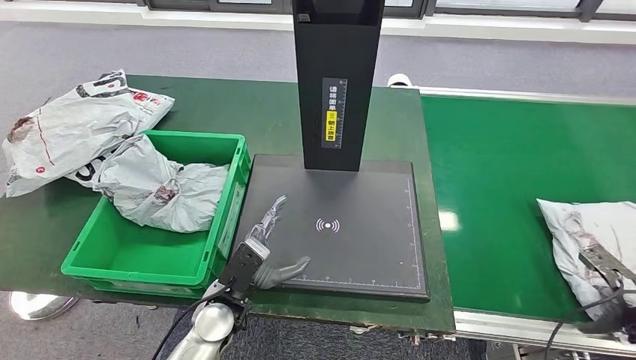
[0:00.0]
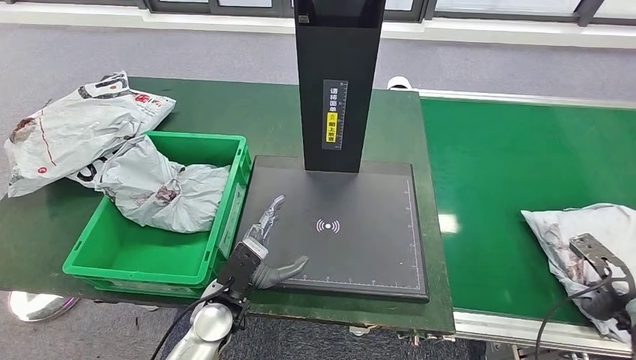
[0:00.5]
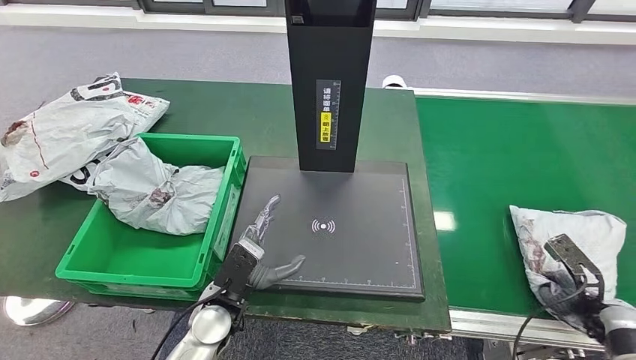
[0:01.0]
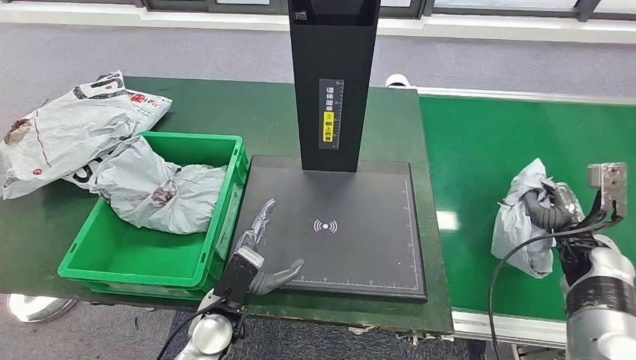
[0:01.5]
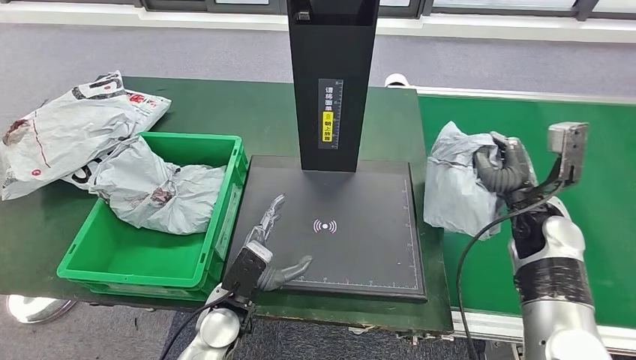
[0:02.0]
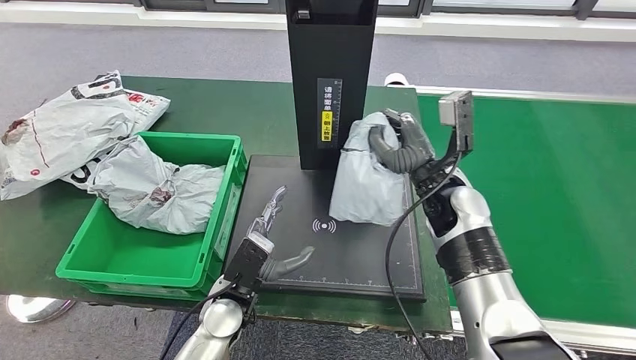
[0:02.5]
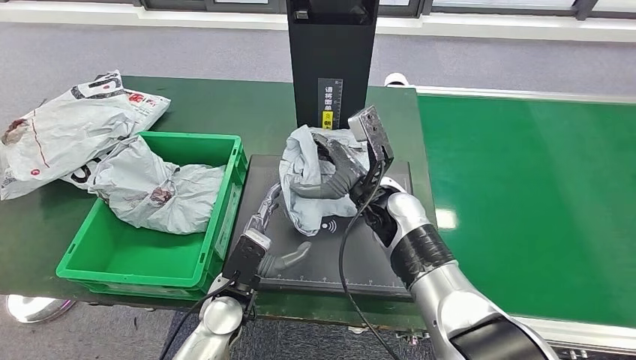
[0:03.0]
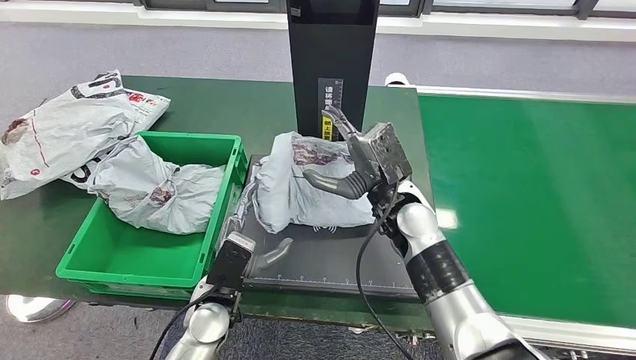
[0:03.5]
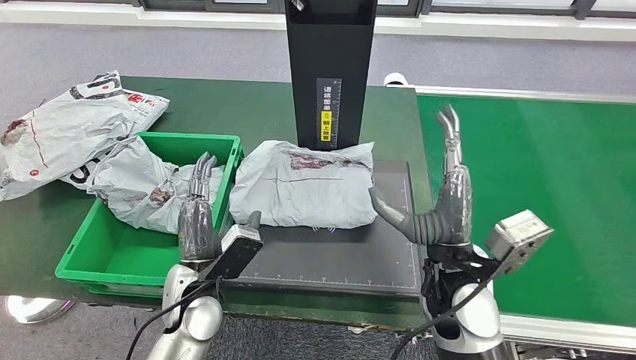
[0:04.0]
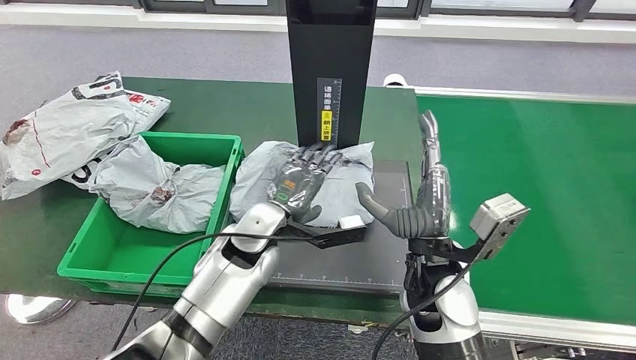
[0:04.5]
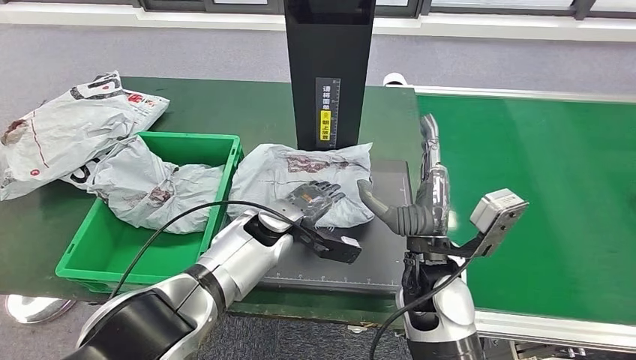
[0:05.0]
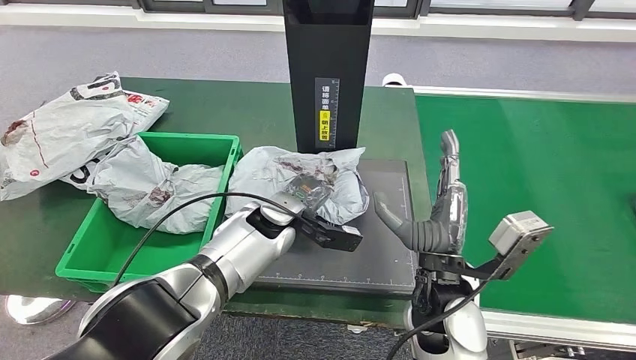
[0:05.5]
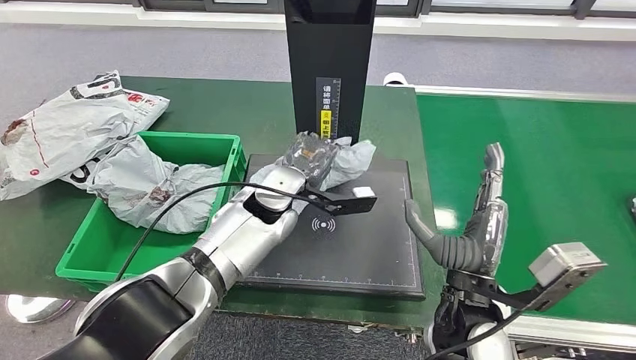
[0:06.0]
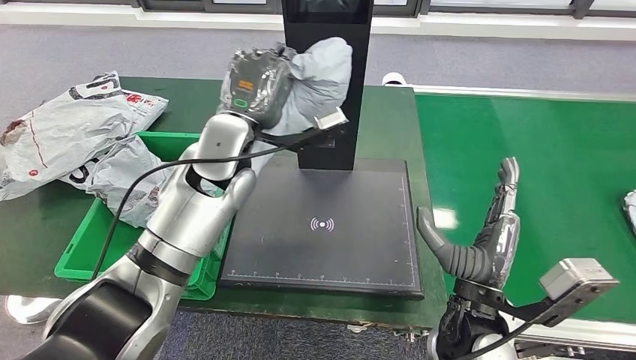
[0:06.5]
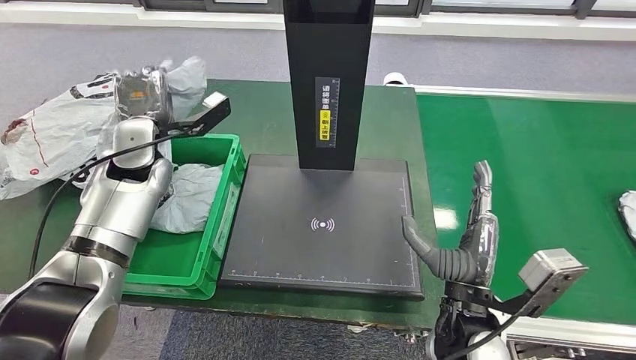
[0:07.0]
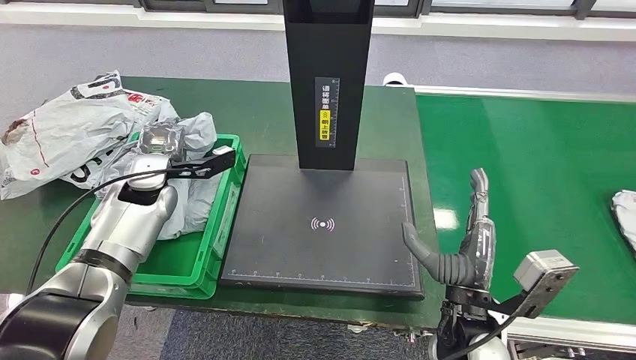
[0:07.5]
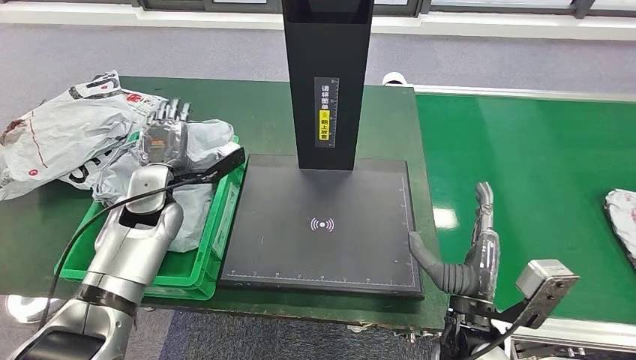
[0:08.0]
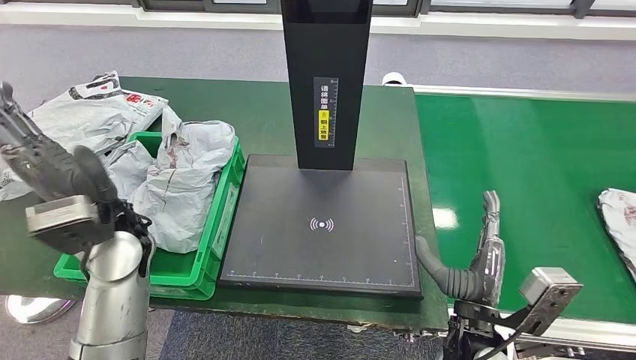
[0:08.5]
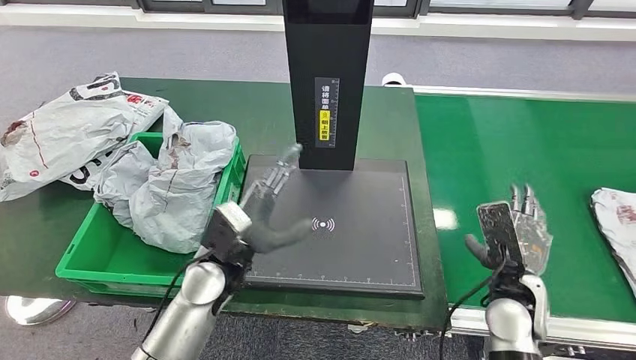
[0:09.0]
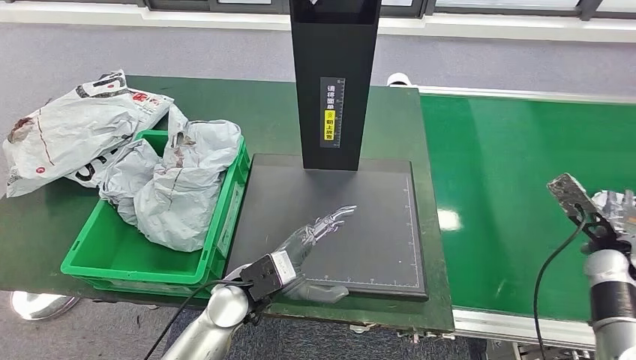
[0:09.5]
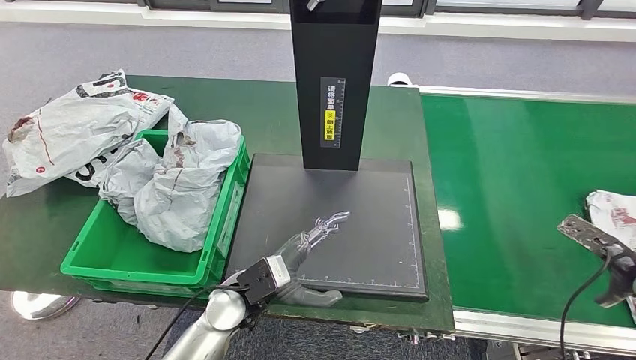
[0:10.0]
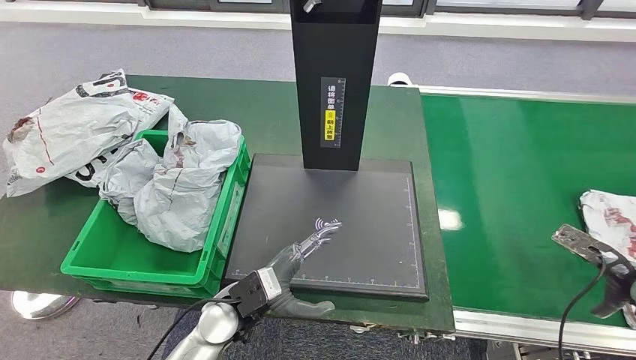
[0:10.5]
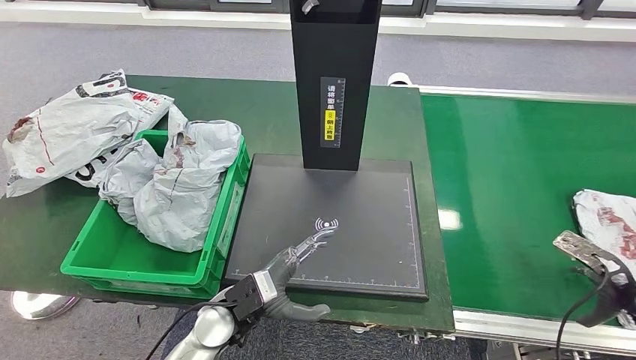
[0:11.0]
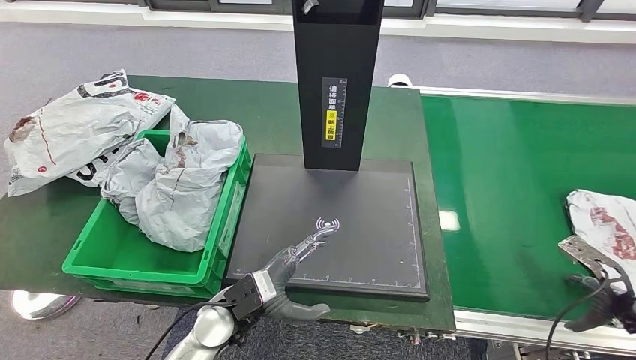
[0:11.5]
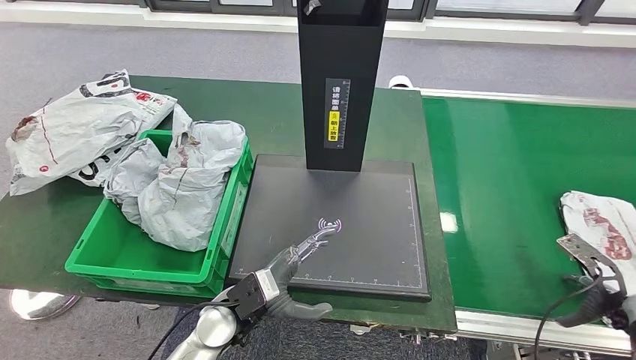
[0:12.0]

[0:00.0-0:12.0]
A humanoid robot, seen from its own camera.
Step, 0:02.0 to 0:05.5: Place the parcel onto the inbound machine.
Step, 0:06.0 to 0:07.0: Pick up the parcel from the inbound machine.
Step, 0:07.5 to 0:09.0: Place the parcel into the delivery box.

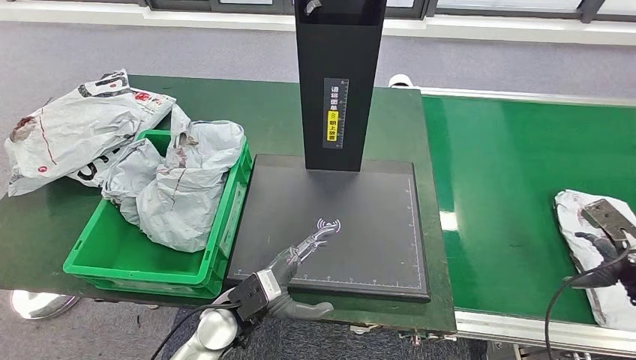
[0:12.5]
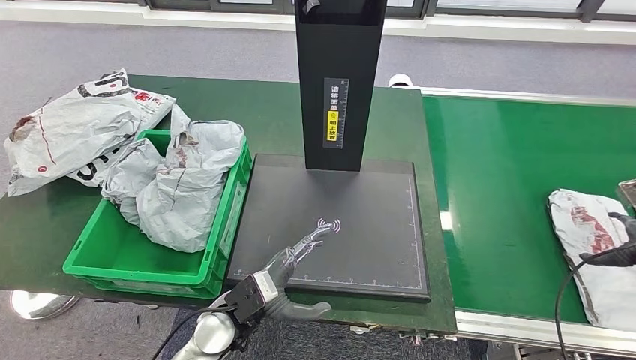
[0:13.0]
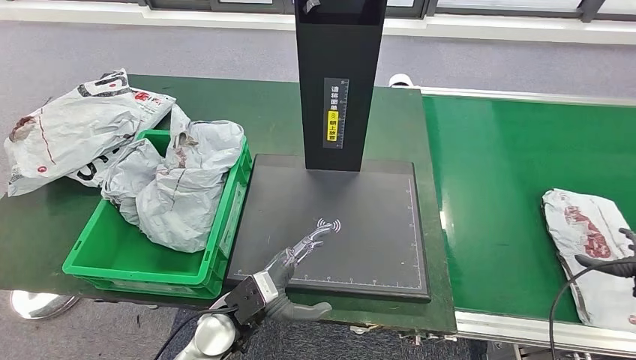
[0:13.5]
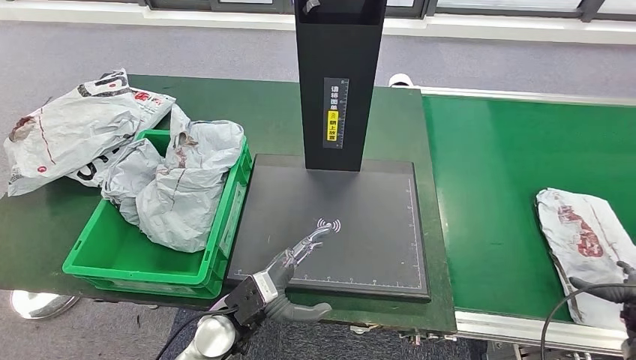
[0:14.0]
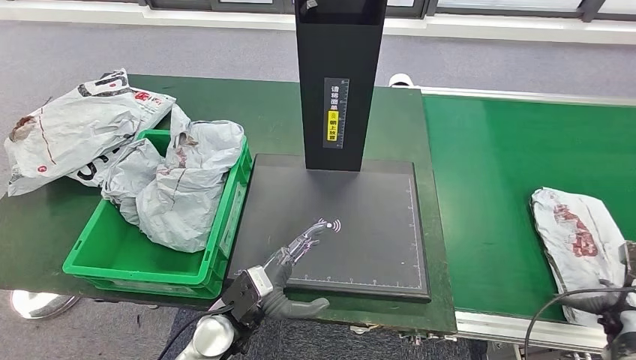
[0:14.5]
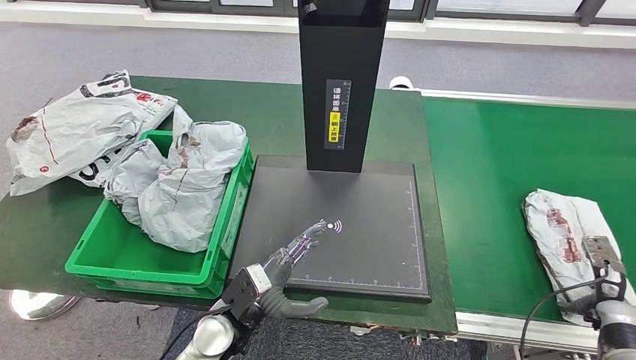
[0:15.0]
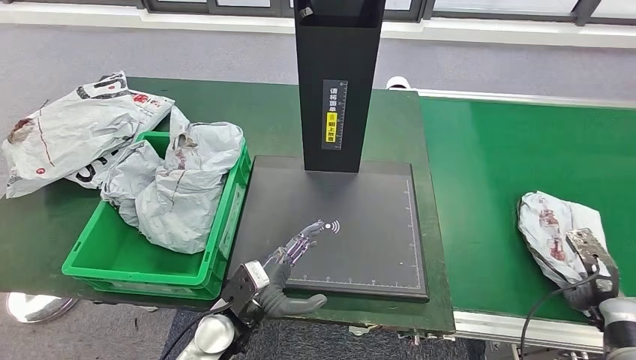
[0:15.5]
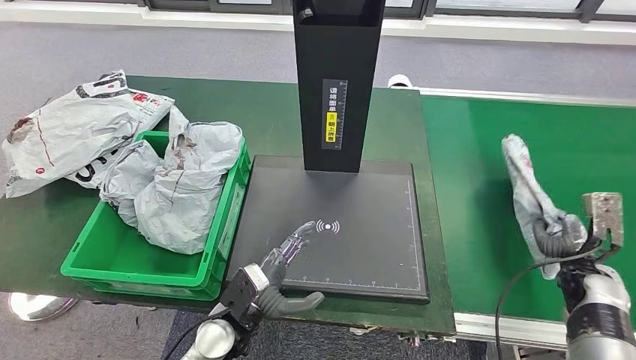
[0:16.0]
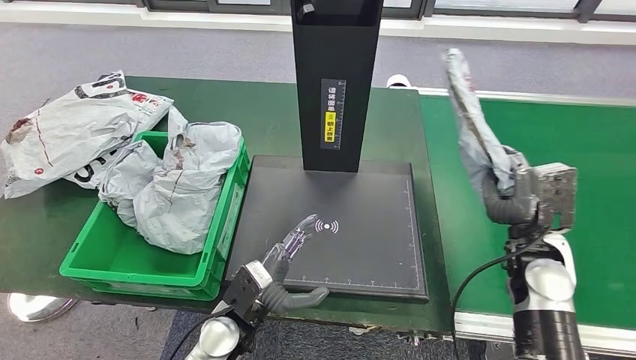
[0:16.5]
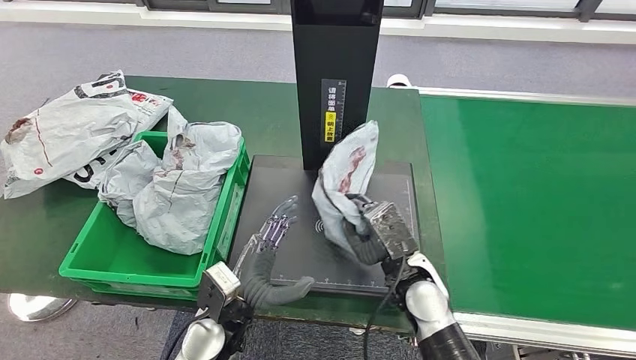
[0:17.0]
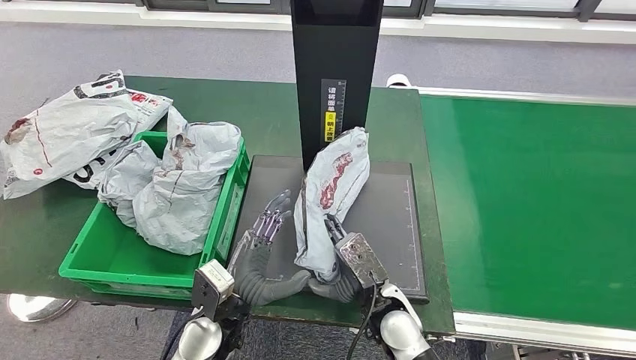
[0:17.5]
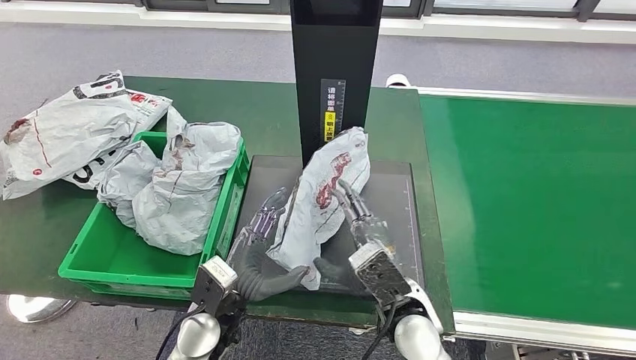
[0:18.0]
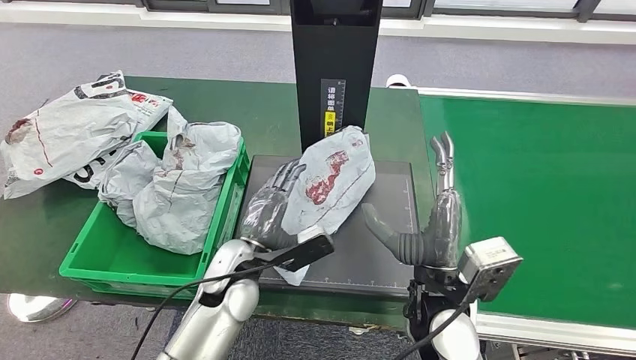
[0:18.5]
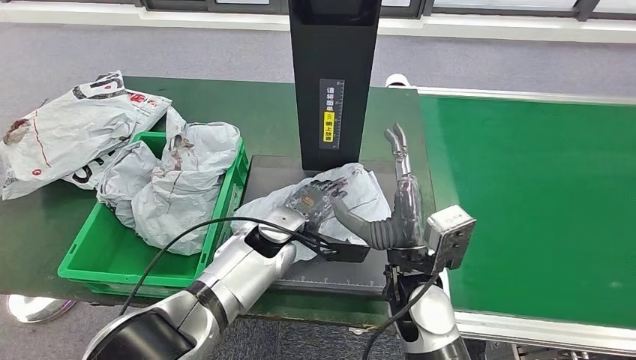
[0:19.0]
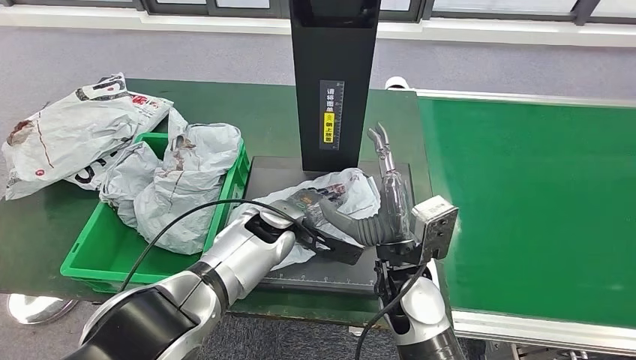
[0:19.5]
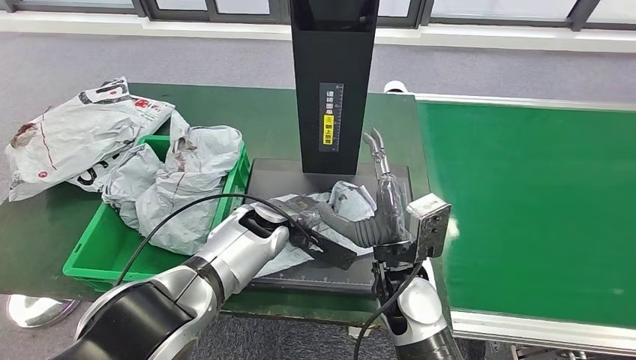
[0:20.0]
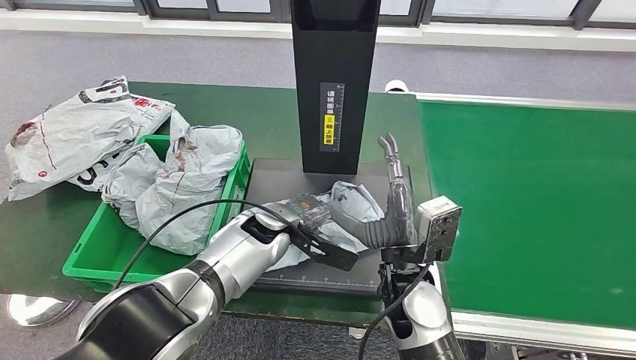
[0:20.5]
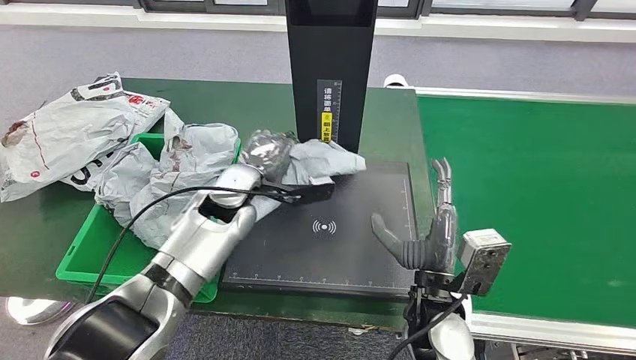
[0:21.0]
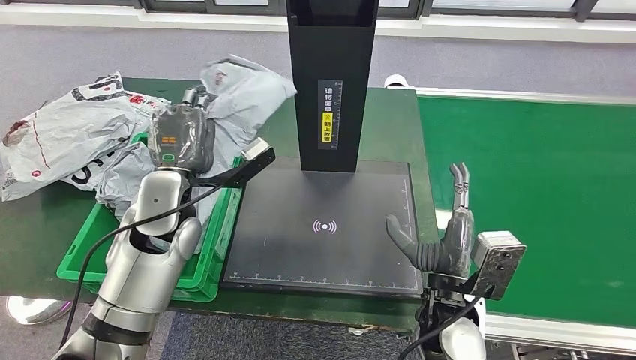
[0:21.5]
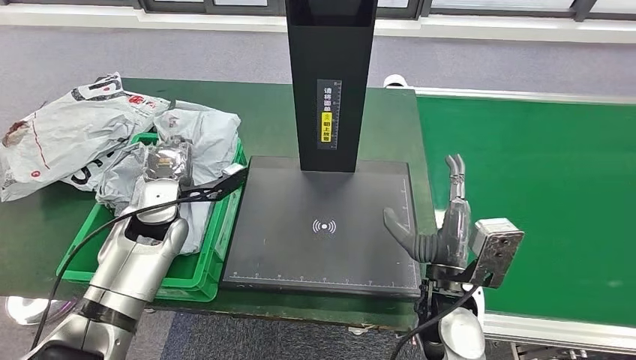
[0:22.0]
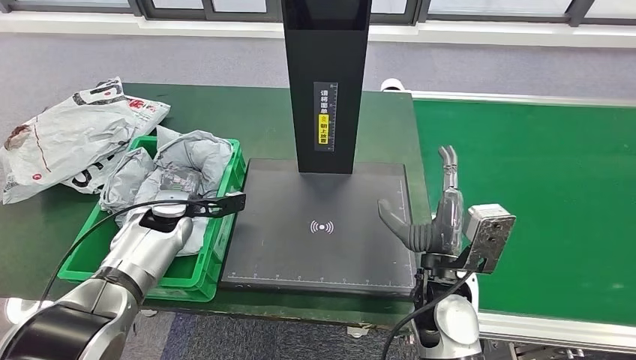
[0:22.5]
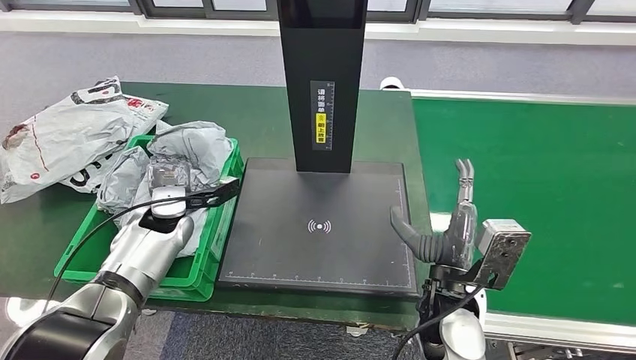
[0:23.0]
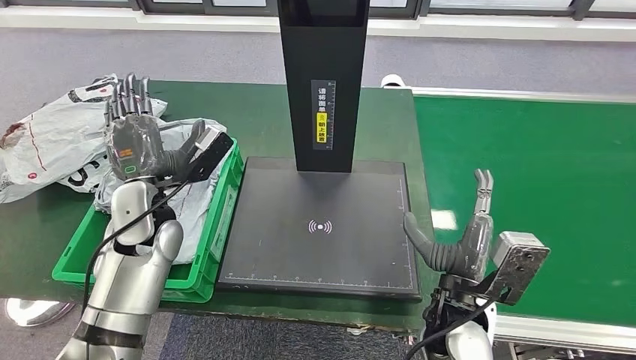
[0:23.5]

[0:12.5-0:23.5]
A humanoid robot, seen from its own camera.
Step, 0:12.5 to 0:15.5: Pick up the parcel from the conveyor belt.
Step, 0:16.0 to 0:19.5: Place the parcel onto the inbound machine.
Step, 0:20.0 to 0:21.5: Pick up the parcel from the inbound machine.
0:12.5 to 0:14.5: The right hand travels downward by about 5 cm.
0:14.5 to 0:16.0: The right hand shifts some 10 cm to the left and forward.
